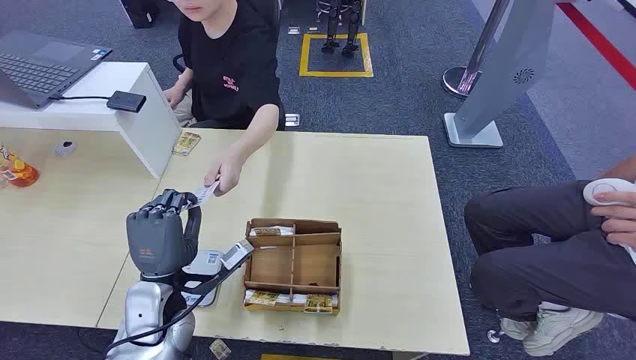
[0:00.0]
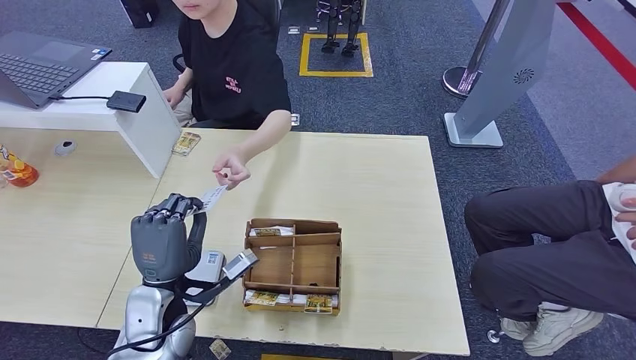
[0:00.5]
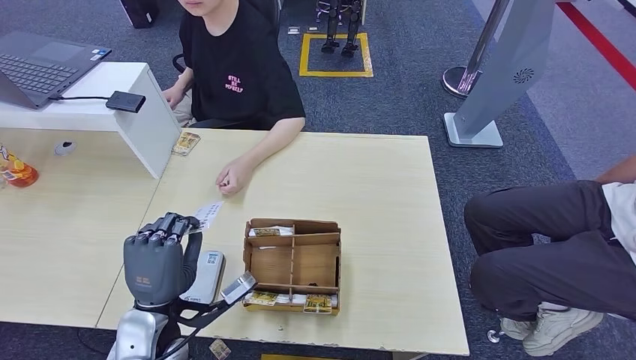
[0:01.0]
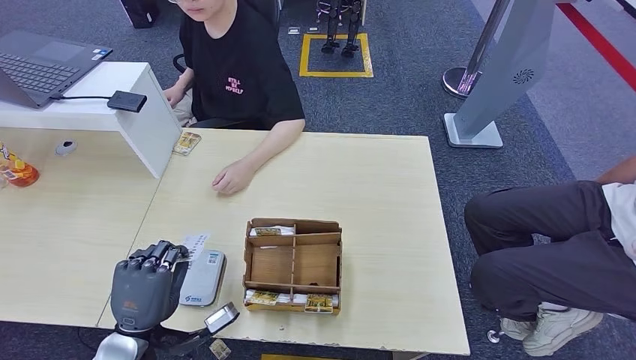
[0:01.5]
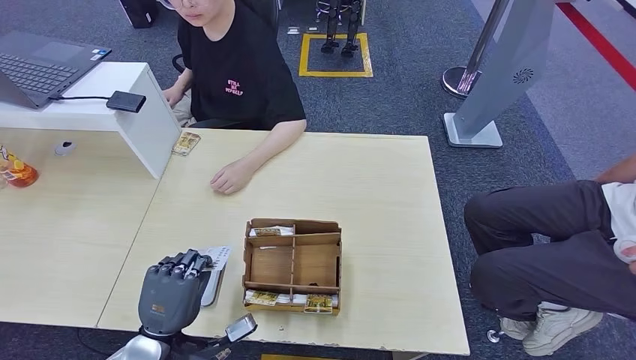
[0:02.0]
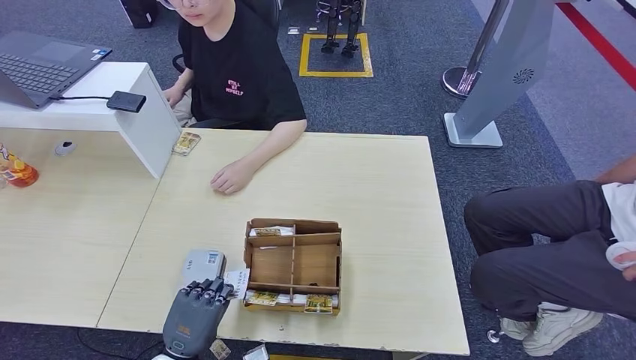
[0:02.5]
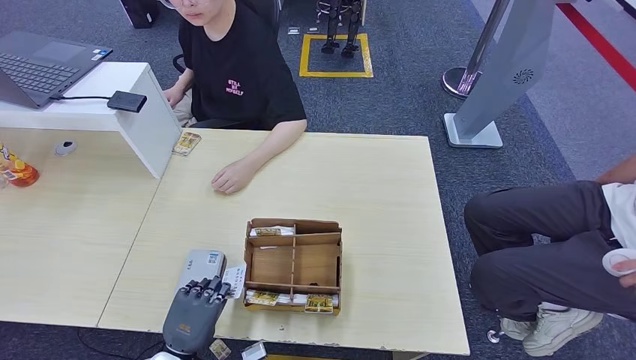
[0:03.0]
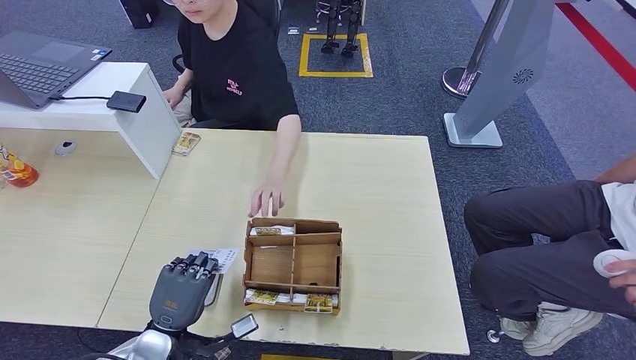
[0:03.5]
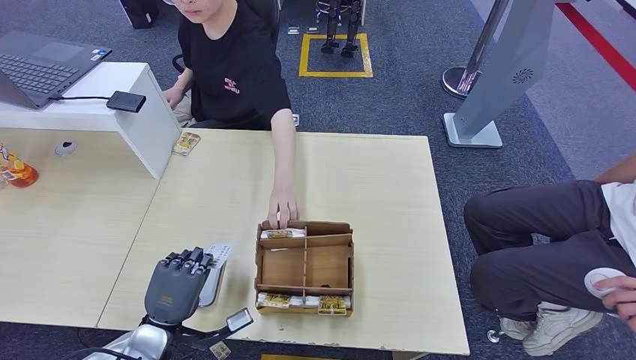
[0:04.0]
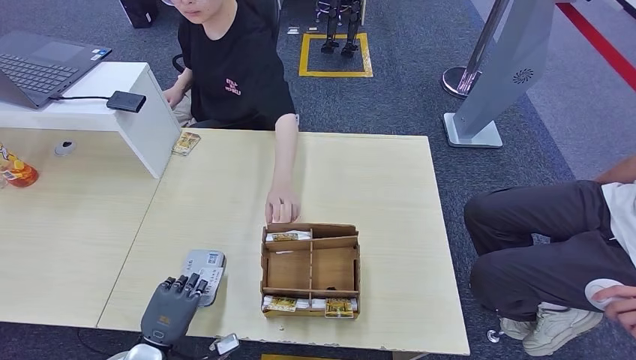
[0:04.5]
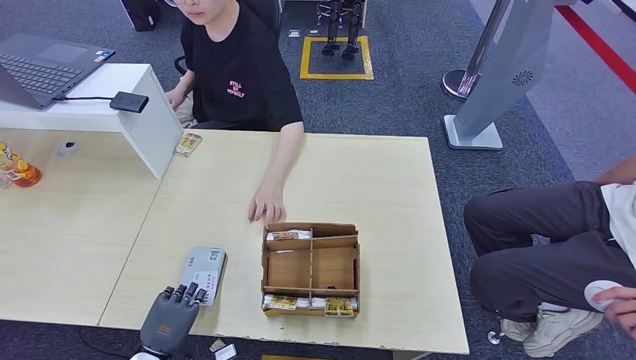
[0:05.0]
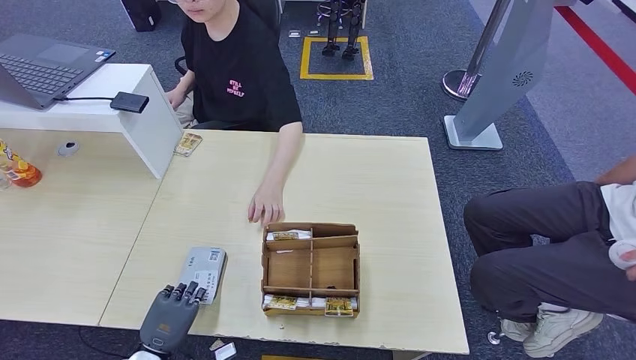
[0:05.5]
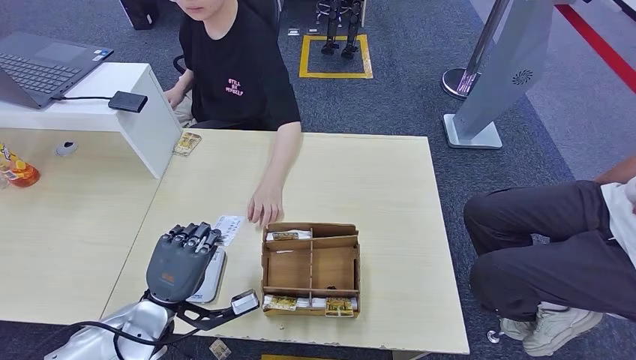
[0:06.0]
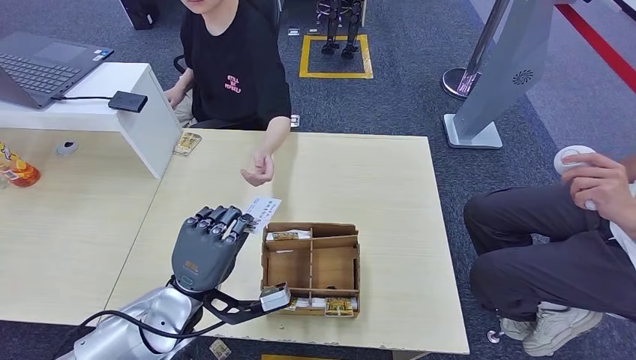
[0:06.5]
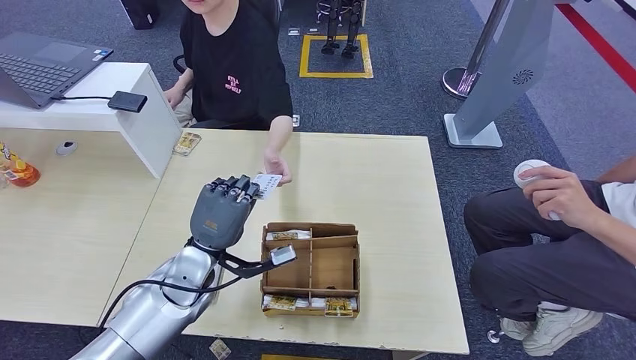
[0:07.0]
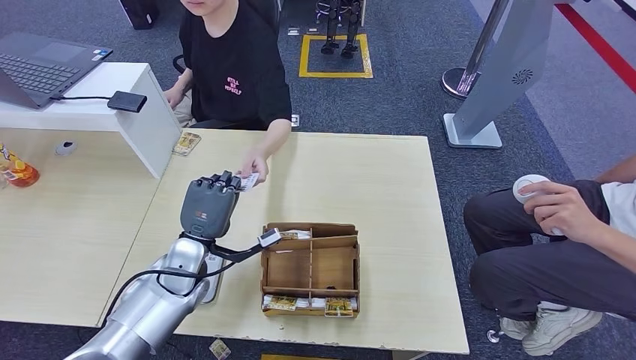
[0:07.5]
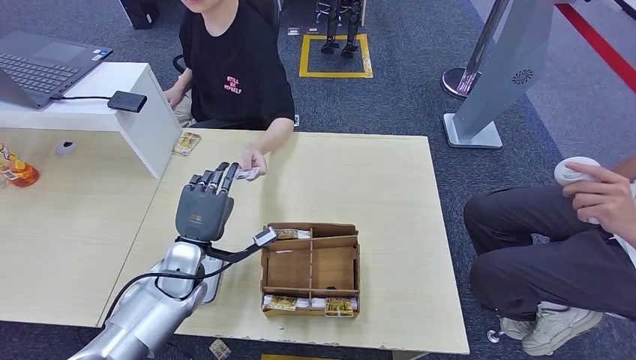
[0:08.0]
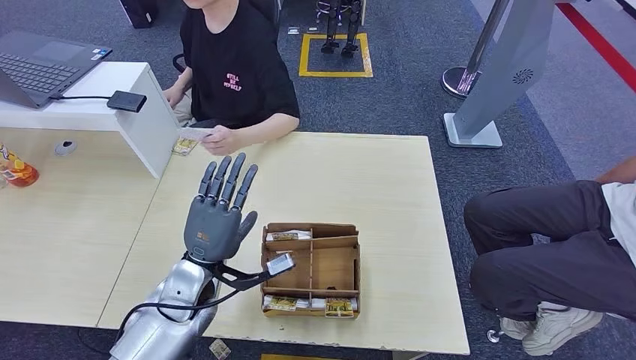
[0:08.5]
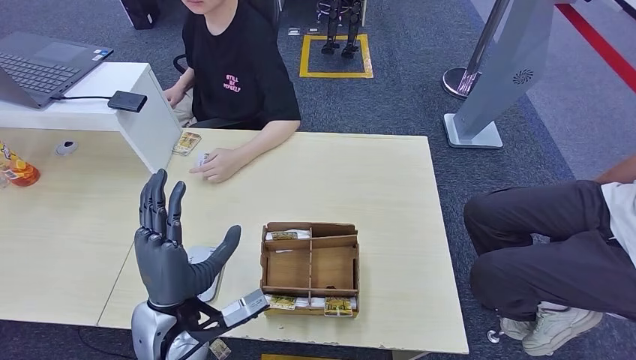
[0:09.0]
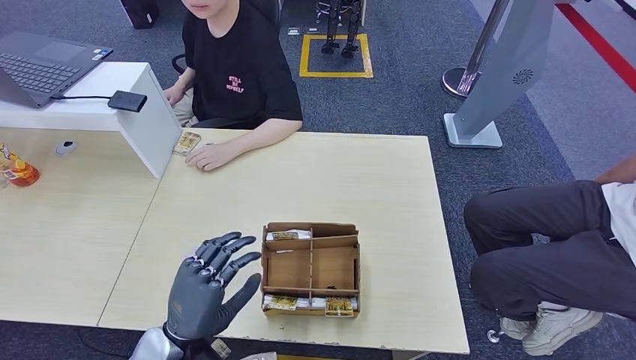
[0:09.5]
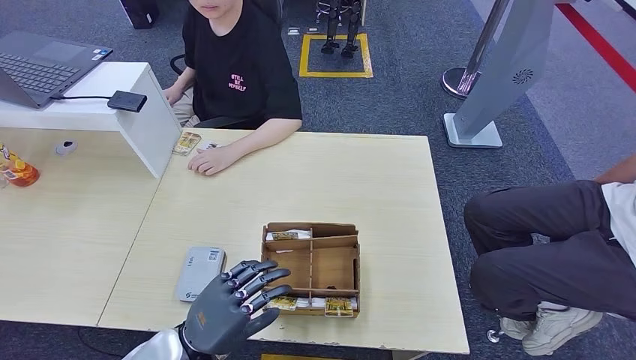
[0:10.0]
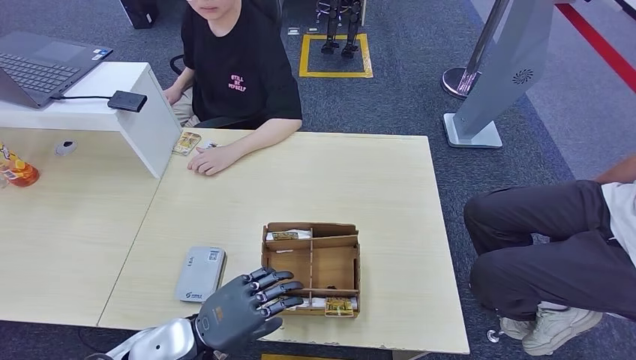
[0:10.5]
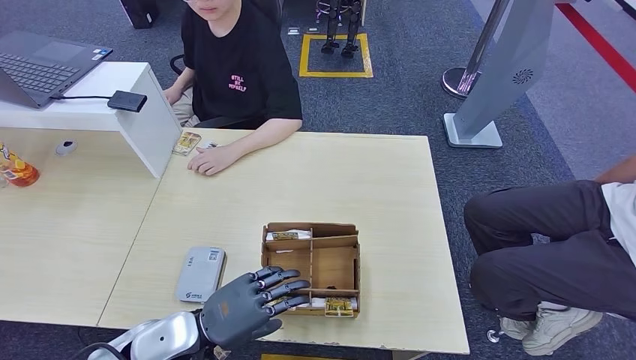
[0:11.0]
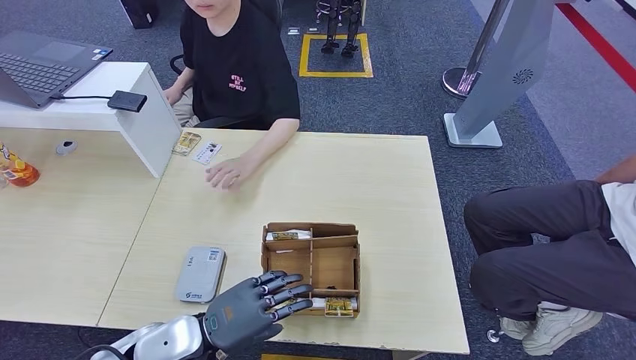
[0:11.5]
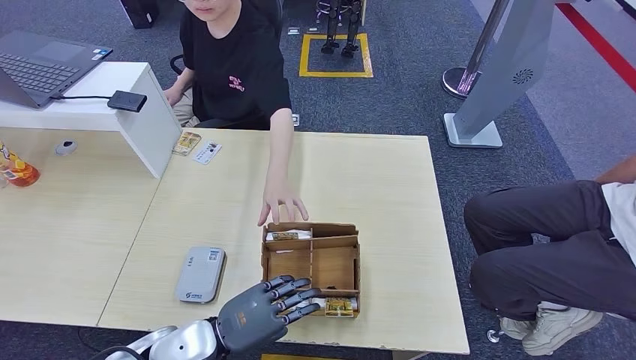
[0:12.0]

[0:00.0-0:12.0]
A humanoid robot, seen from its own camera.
Step, 0:00.0 to 0:00.5: Take the ID card from the person's hand.
Step, 0:01.0 to 0:06.0: Place the ID card on the card reader.
Step, 0:06.5 to 0:09.0: Hand the ID card to the person.
0:02.0 to 0:04.0: There are only small adjustments of the hands.
0:06.0 to 0:08.0: The left hand heads forward, covering about 10 cm.
0:08.0 to 0:10.0: The left hand shifts some 15 cm backward.

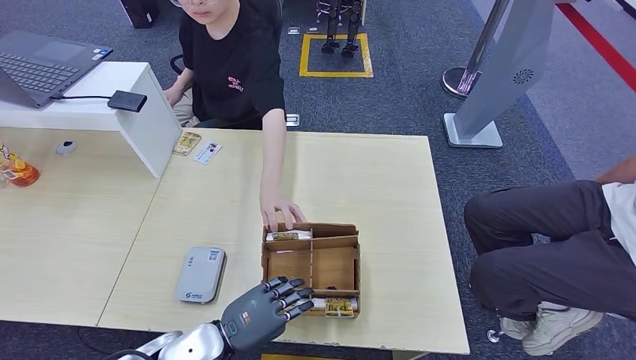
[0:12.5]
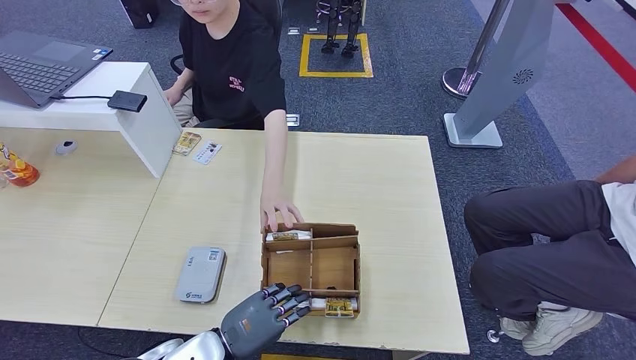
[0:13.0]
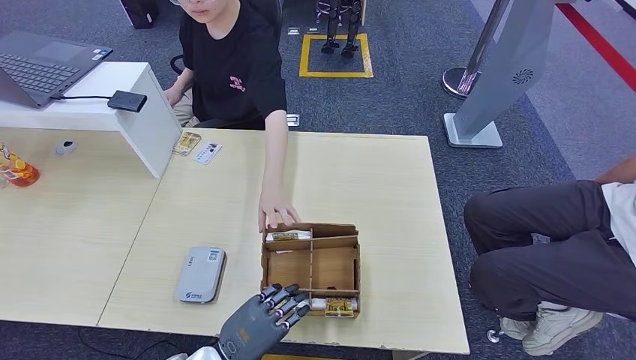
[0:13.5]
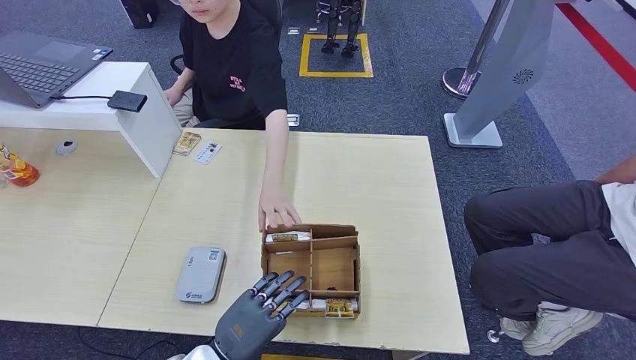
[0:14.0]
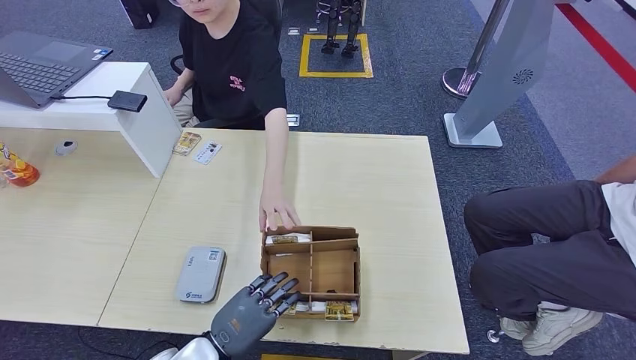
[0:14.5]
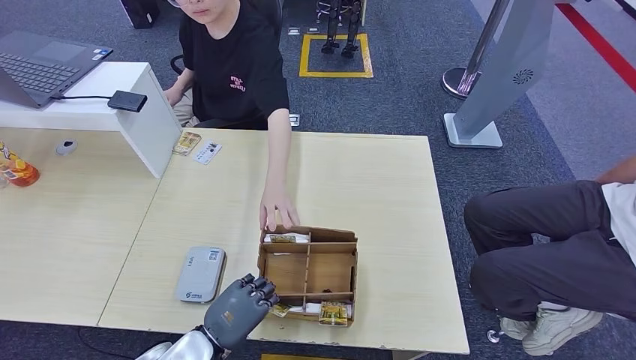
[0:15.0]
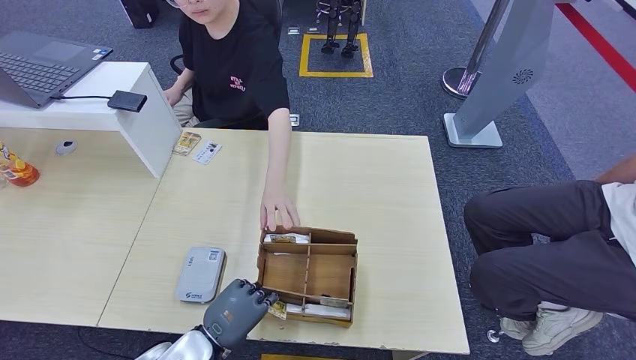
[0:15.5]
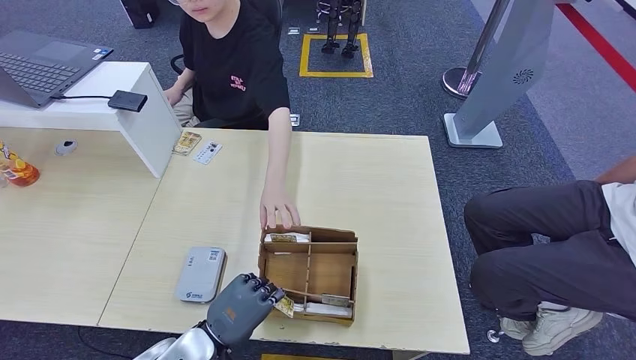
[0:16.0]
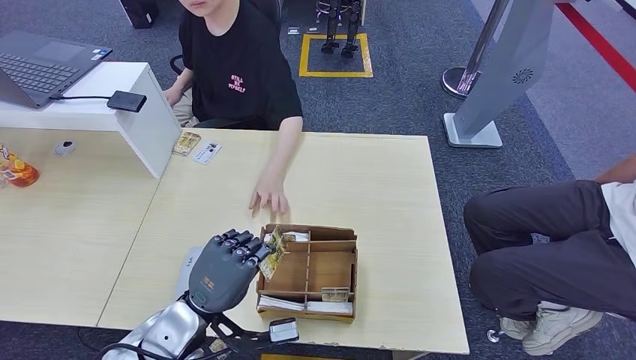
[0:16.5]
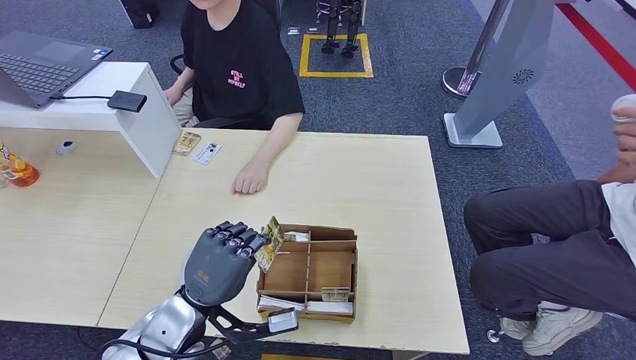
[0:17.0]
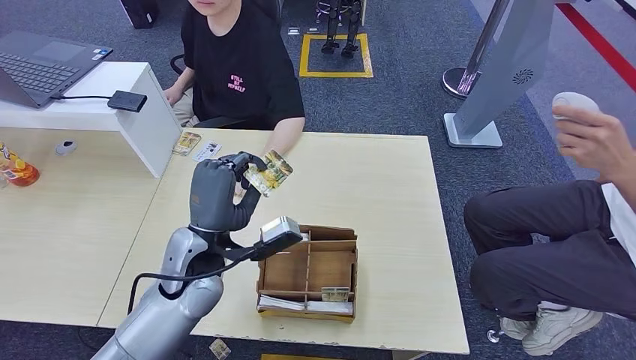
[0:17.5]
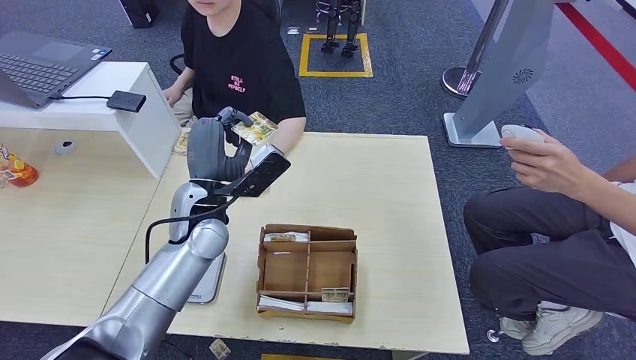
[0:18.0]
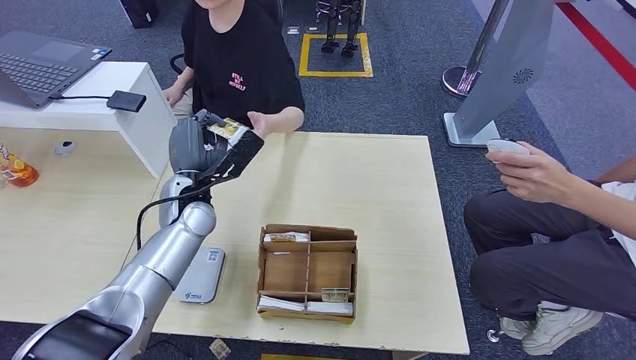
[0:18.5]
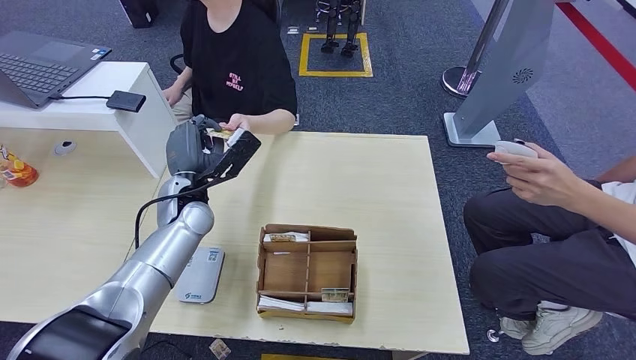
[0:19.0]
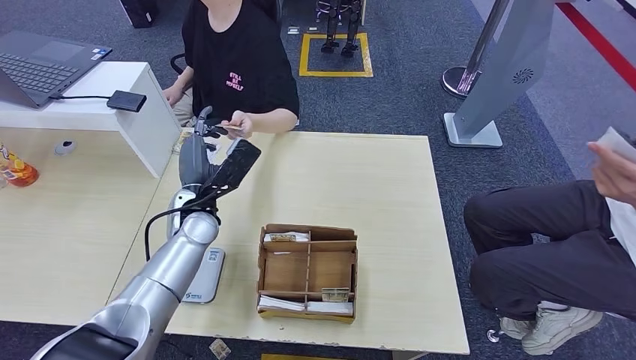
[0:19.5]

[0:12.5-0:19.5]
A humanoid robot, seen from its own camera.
Step, 0:12.5 to 0:16.5: Pick up the room key from the key card box.
Step, 0:17.0 to 0:19.5: Hand the room key to the person.
0:12.5 to 0:16.0: The hands move only a little.
0:16.0 to 0:17.5: The left hand heads upward and forward, covering some 15 cm.
0:17.5 to 0:19.5: The left hand heads forward, covering some 10 cm.

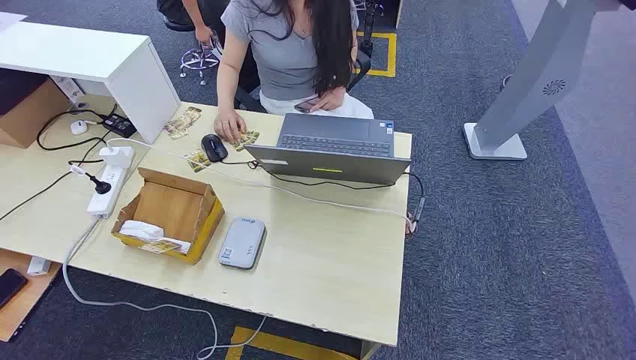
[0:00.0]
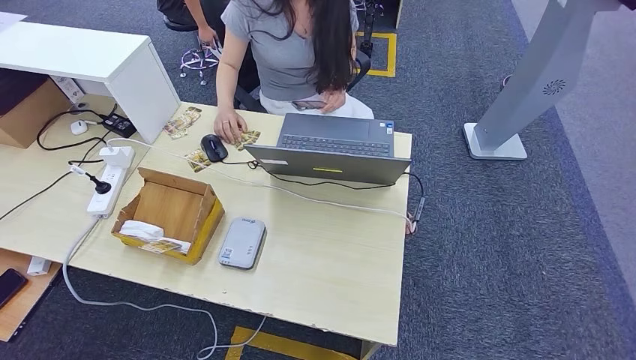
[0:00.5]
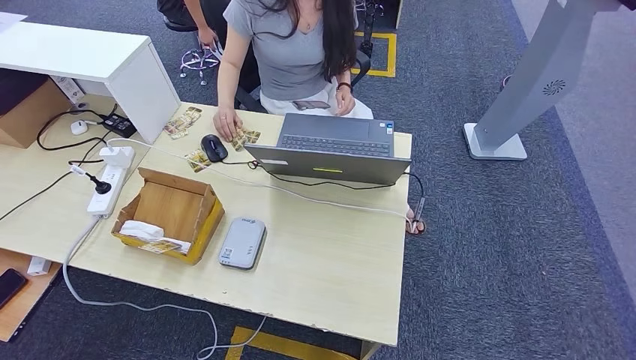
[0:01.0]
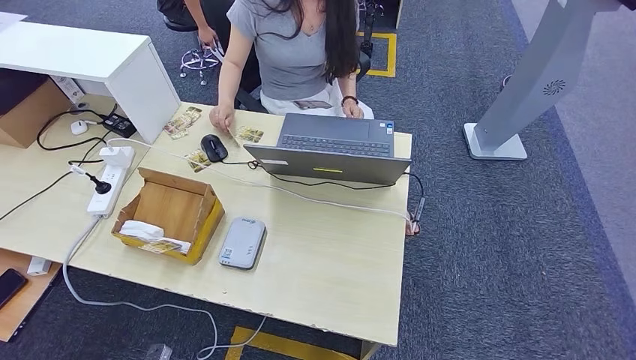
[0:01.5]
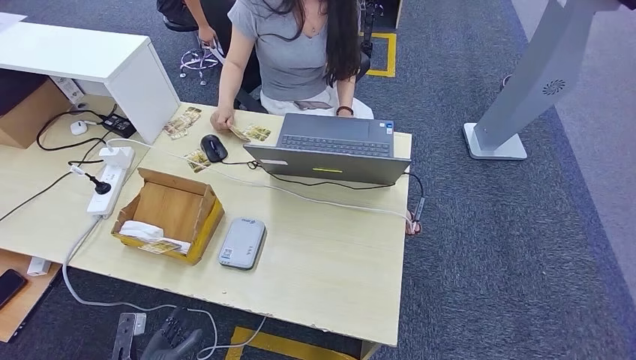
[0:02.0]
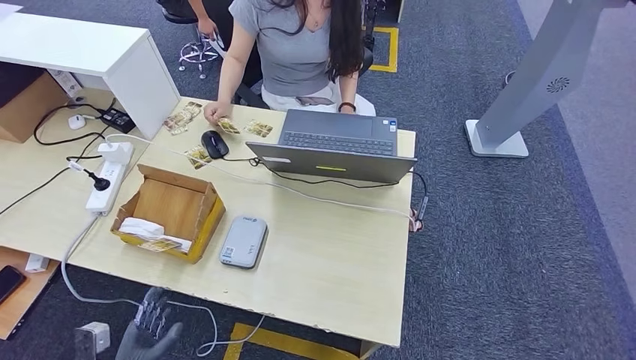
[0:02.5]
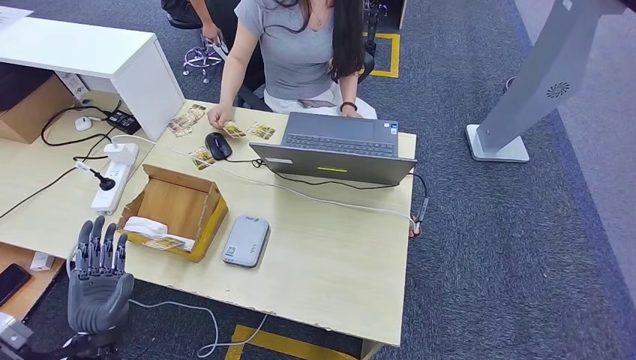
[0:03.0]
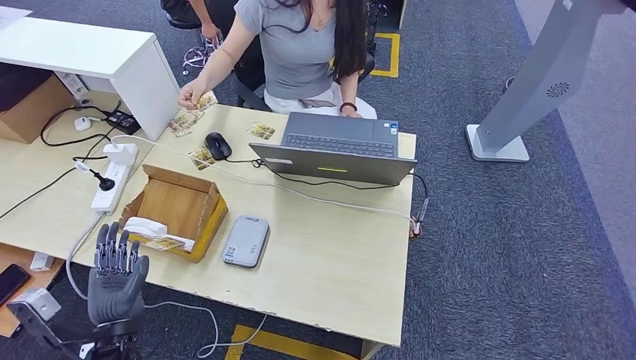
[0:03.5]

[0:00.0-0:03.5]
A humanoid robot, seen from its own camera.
0:02.0 to 0:03.5: The left hand moves upward and forward, roughly 15 cm.
